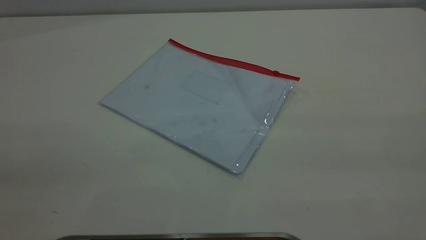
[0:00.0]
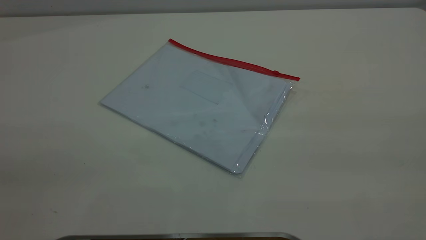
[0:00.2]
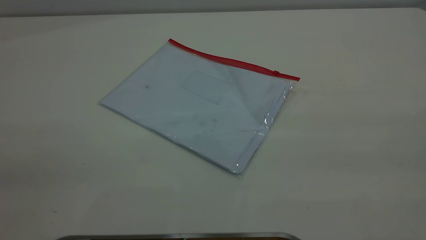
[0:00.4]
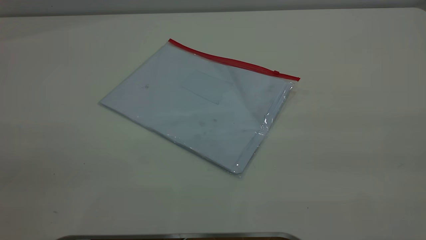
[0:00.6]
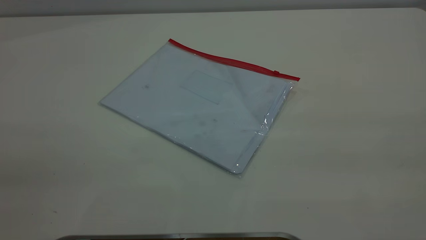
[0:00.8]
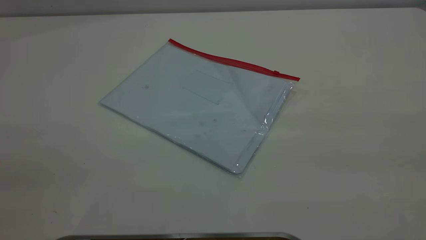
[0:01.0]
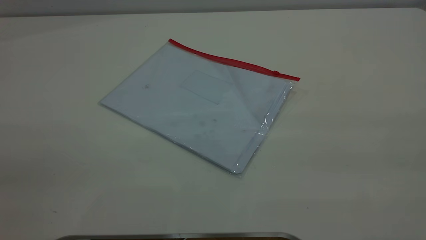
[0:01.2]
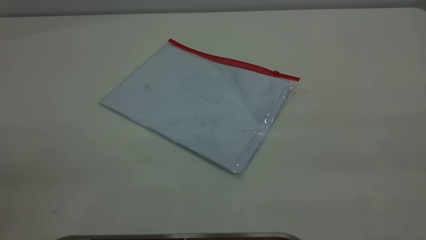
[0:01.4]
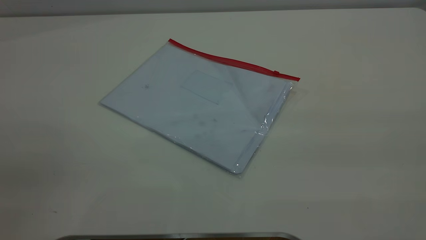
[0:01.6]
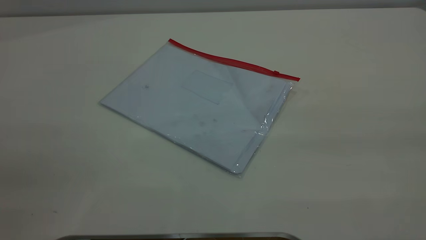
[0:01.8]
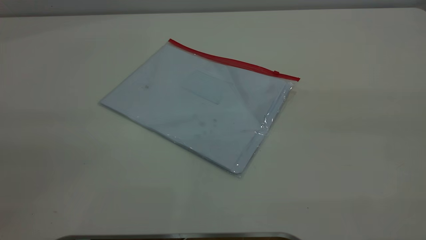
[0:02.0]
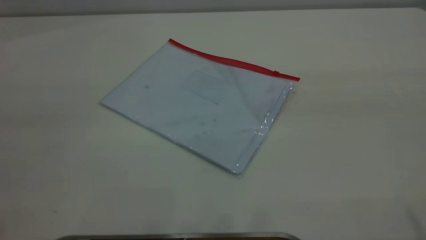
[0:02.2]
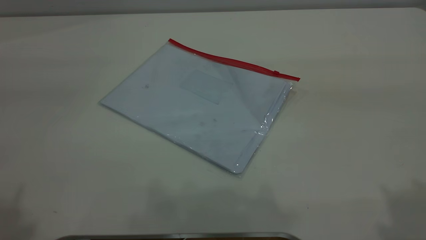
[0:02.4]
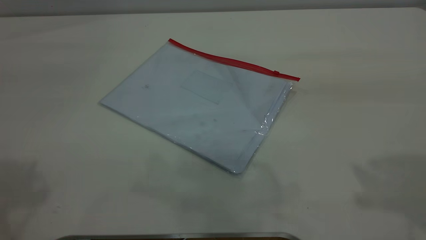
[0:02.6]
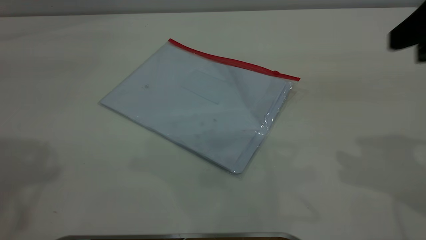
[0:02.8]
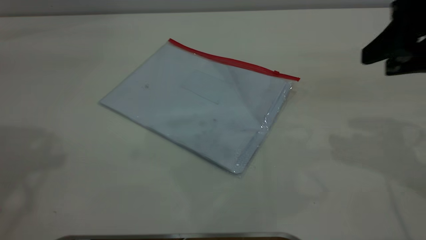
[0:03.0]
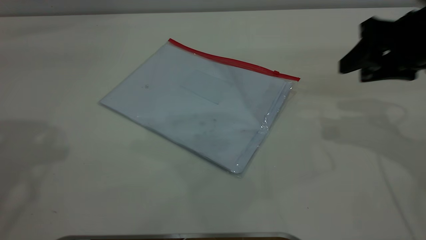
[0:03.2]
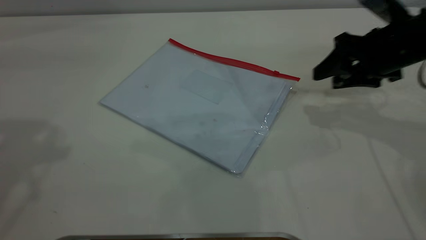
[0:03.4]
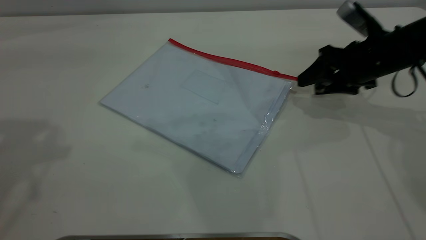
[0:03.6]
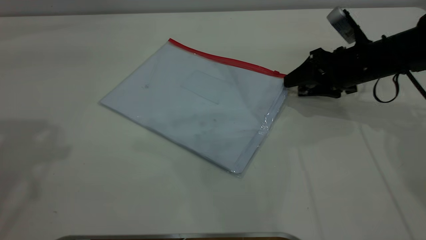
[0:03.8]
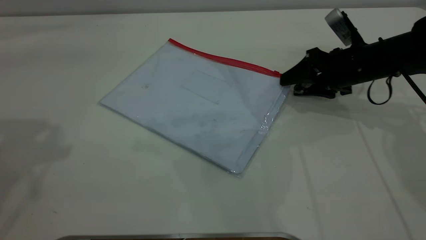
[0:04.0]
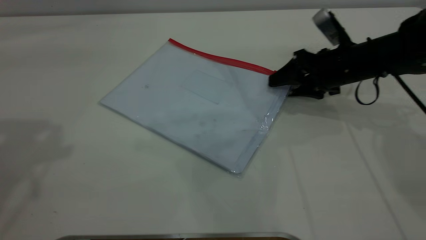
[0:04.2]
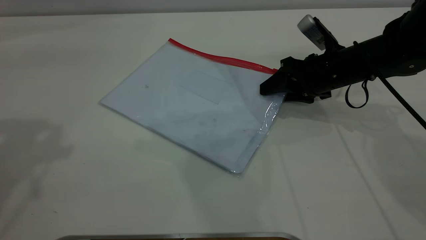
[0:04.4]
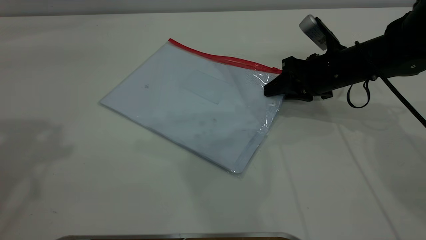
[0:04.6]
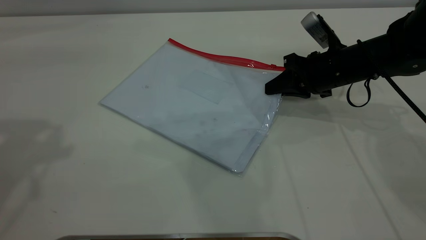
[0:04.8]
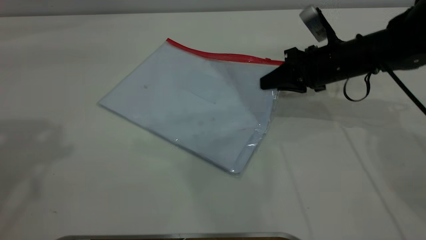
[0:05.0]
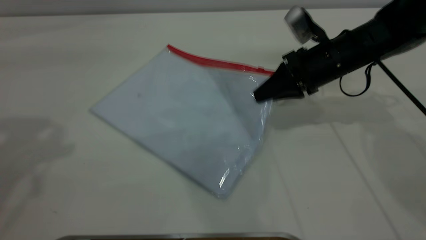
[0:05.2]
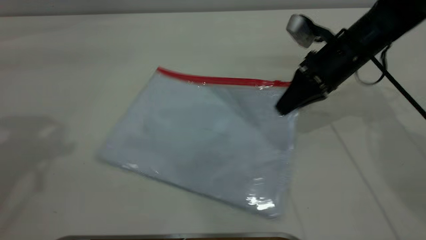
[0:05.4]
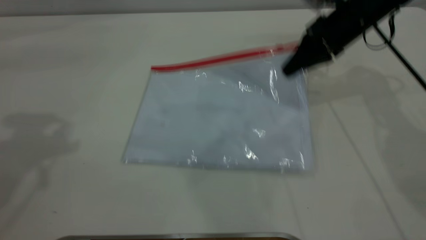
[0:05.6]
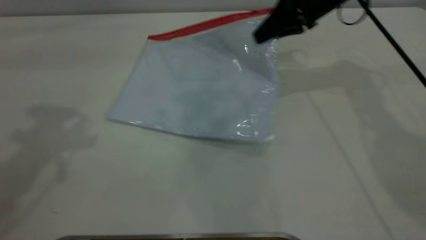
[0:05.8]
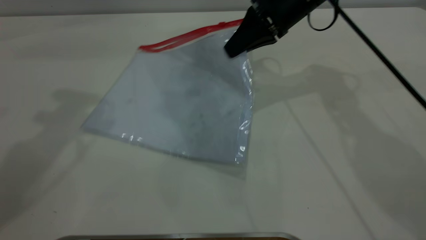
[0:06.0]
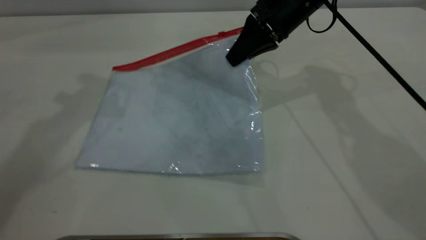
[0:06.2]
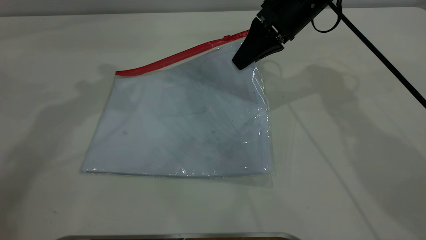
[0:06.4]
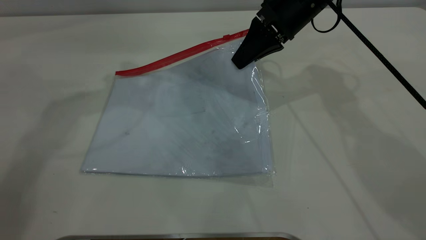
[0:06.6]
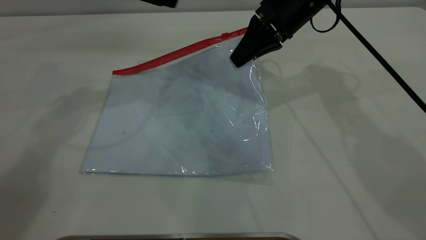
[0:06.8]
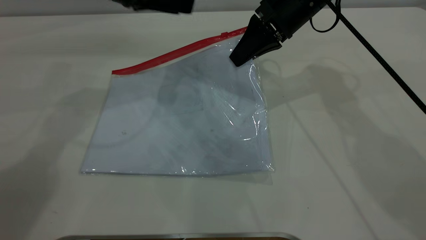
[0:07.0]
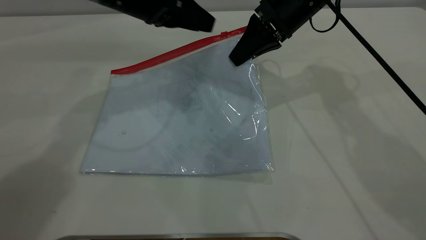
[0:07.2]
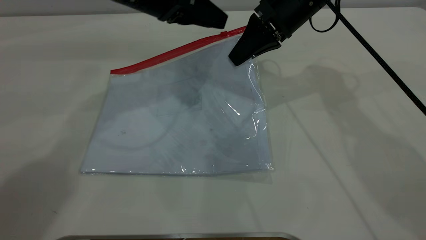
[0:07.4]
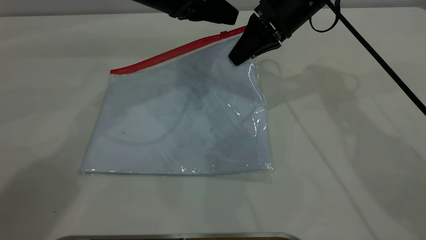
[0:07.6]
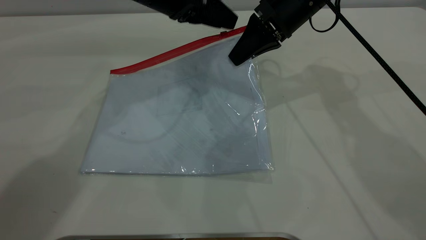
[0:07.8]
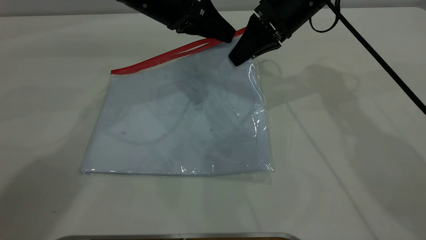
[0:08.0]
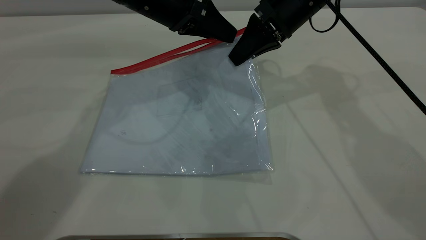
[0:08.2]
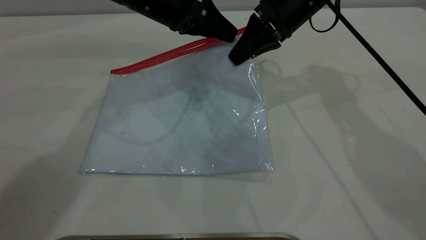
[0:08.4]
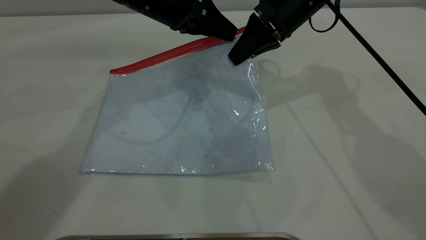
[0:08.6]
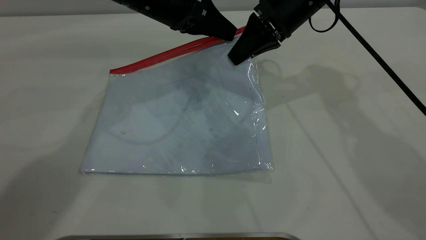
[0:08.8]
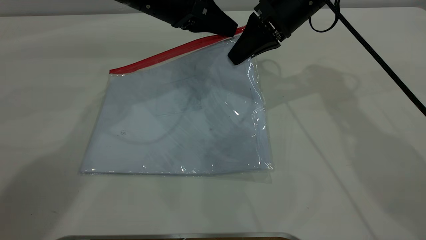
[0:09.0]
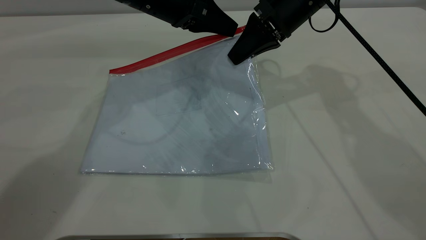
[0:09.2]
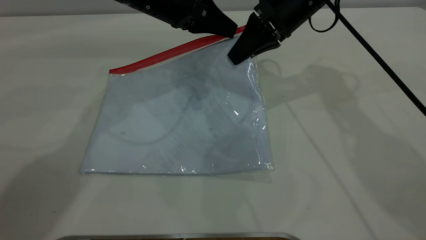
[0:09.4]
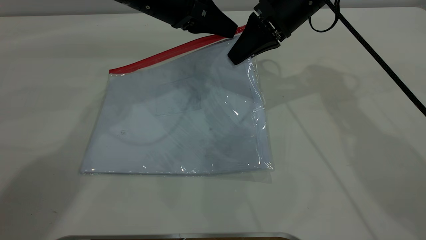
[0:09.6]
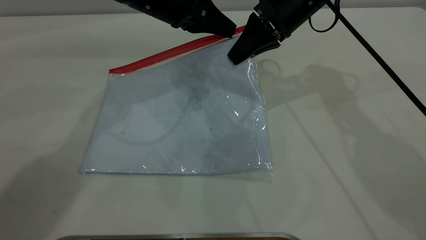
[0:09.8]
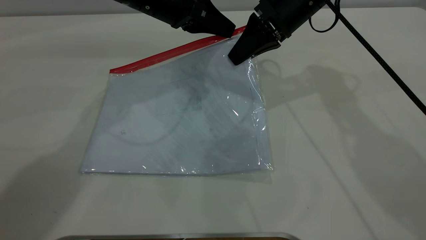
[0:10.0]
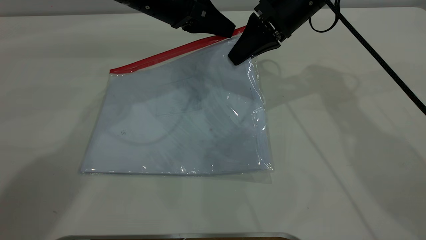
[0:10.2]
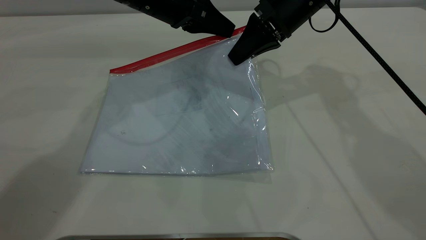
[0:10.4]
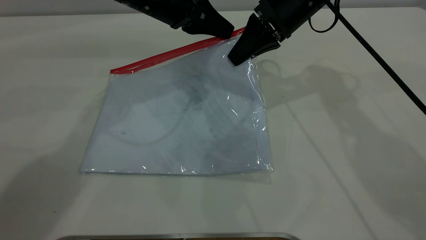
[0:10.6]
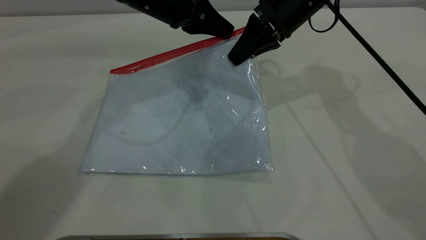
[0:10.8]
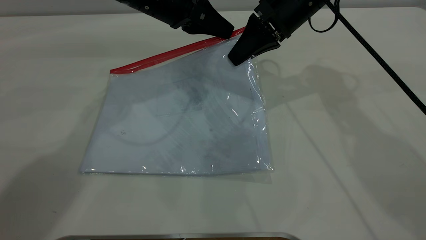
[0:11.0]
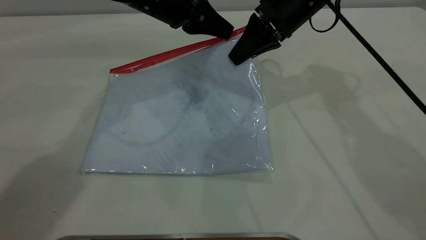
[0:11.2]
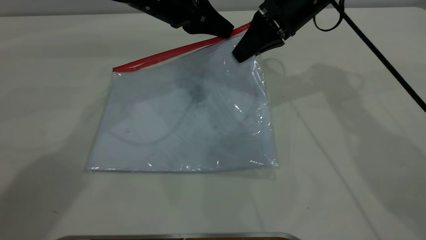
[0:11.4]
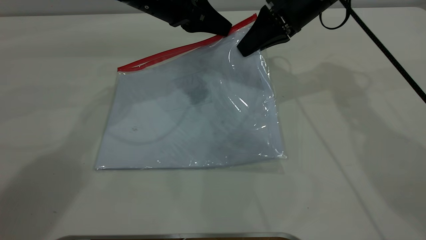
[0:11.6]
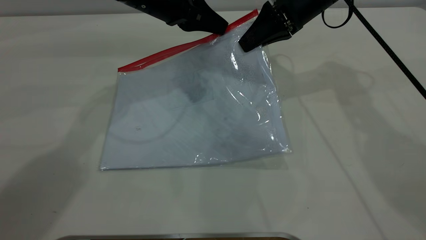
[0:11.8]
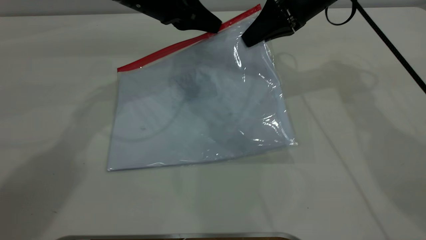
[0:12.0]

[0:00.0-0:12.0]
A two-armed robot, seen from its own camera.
Step, 0:00.0 to 0:06.6: Pick up the transparent plastic bag with the right gripper.
0:01.6 to 0:03.0: The right gripper shifts approximately 30 cm forward and downward.
0:03.0 to 0:04.4: The right gripper goes approximately 20 cm downward, forward and to the left.
0:04.4 to 0:06.0: The left gripper travels forward and to the right by roughly 10 cm. The right gripper goes about 15 cm upward and to the left, and closes up.
0:06.0 to 0:07.6: The left gripper heads downward, to the right and forward, covering approximately 20 cm.
0:07.6 to 0:09.0: The grippers stay close to where they were, moving slightly.
0:10.4 to 0:12.0: The grippers stay close to where they were, moving slightly.

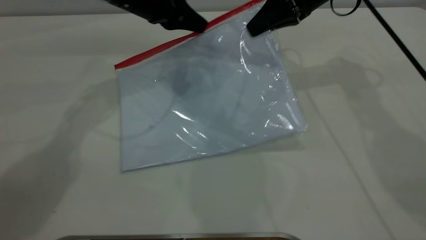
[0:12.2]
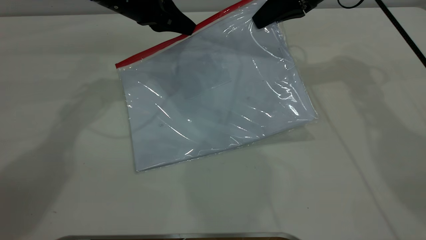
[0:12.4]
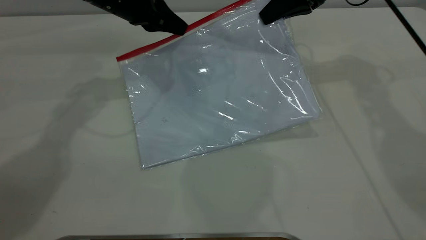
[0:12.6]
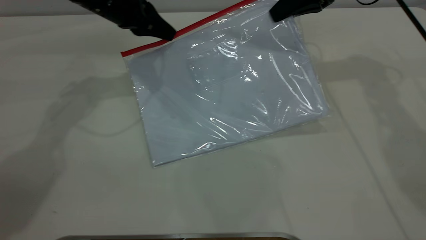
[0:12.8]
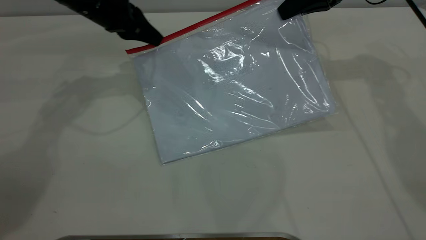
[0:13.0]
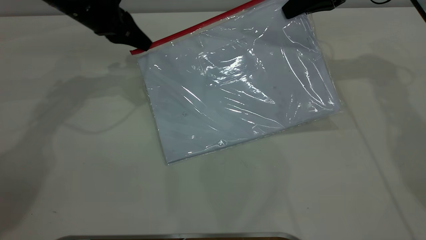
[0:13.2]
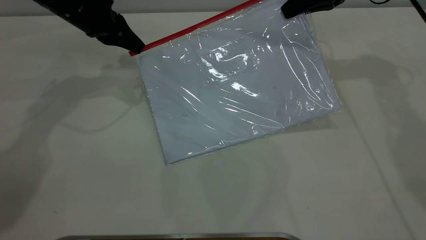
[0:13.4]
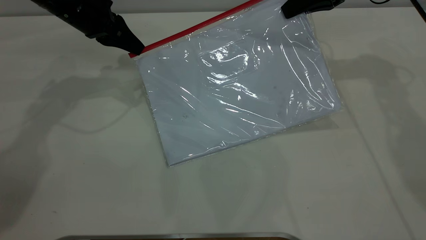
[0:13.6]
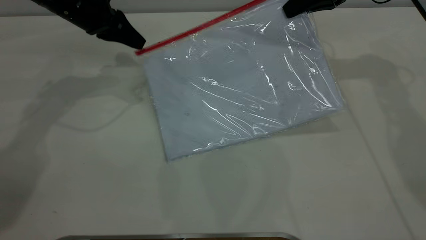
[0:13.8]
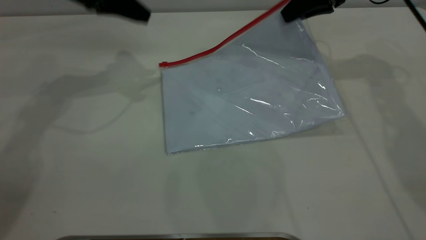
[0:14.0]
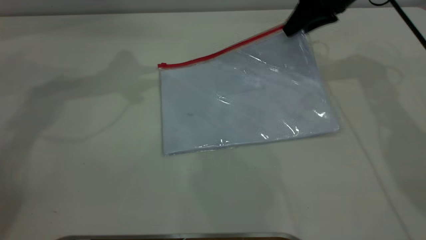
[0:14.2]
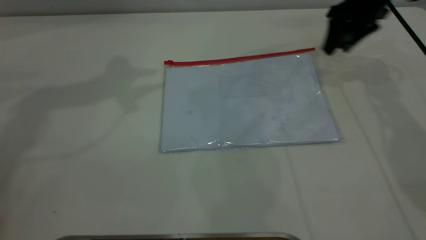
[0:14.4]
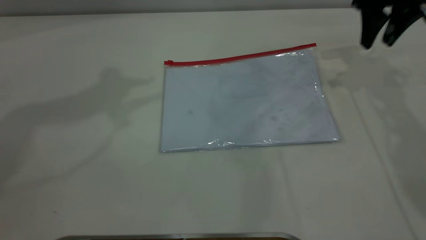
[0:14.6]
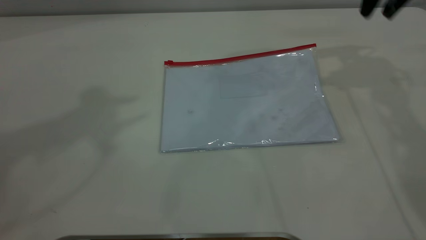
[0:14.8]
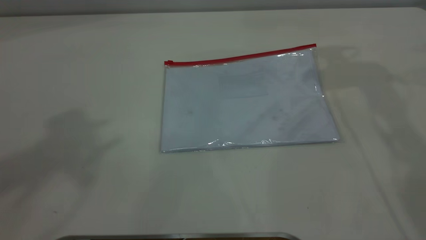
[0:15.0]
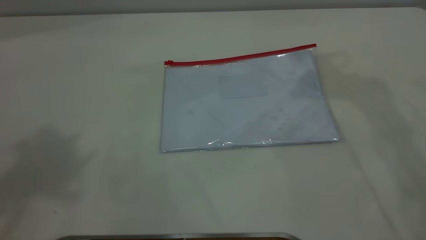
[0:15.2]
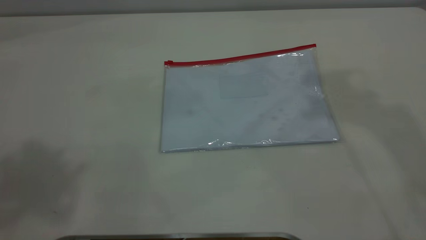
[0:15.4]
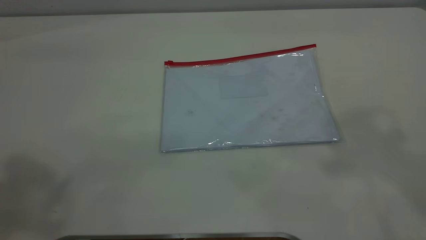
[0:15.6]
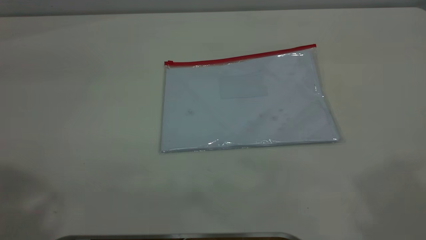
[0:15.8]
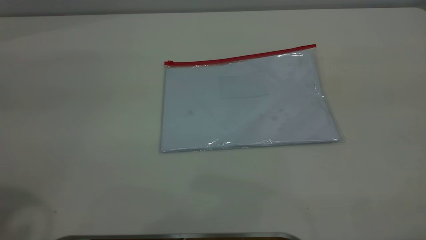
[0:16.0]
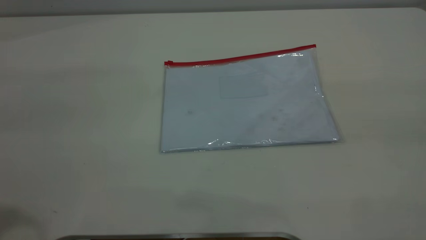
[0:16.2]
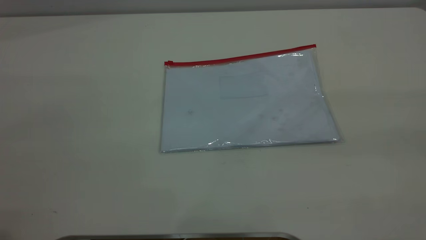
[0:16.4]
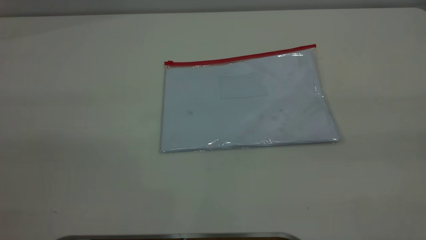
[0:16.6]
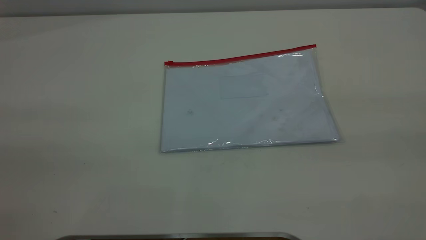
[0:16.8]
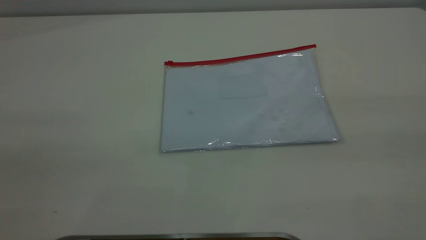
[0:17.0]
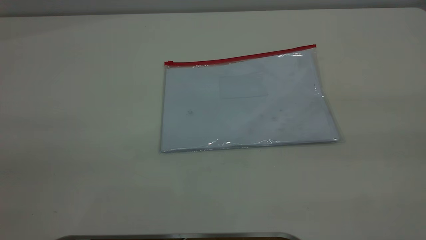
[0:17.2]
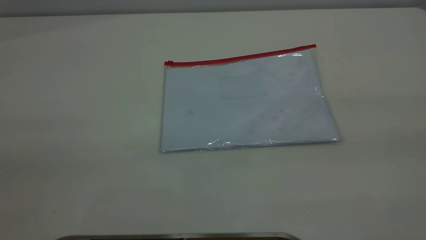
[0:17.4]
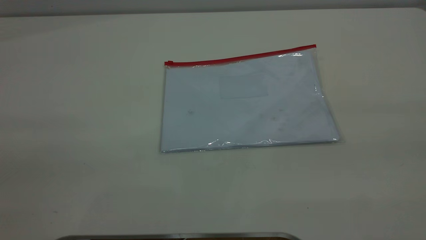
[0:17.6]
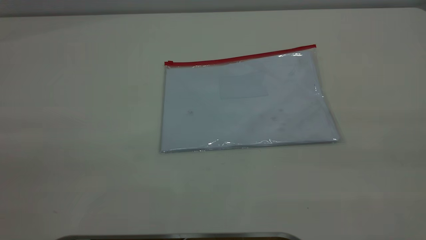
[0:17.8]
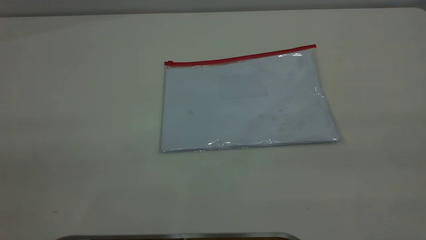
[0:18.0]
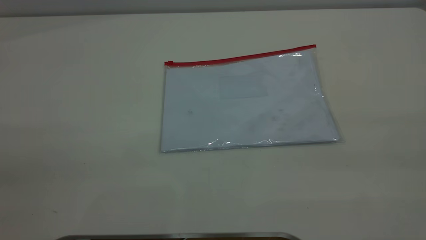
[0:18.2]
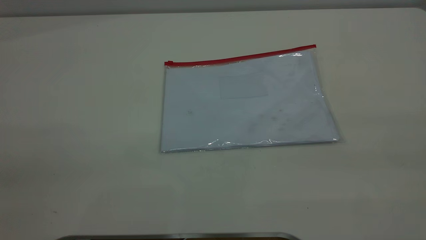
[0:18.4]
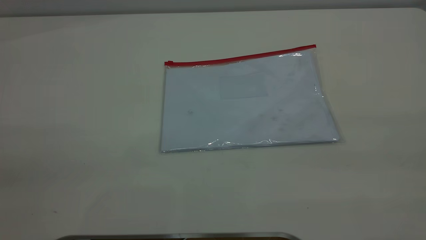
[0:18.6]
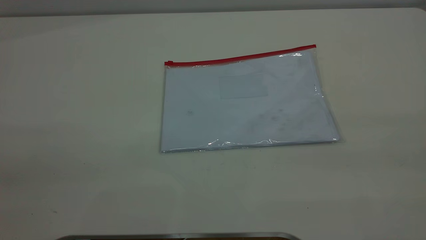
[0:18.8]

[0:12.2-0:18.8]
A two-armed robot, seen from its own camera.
Step, 0:14.2 to 0:14.8: Place the transparent plastic bag.
0:12.2 to 0:13.8: The left gripper shifts roughly 10 cm to the left. The right gripper is displaced to the right by approximately 5 cm.
0:13.8 to 0:15.4: Both grippers travel together upward and backward, about 40 cm. The left gripper opens its fingers. Meanwhile the right gripper opens its fingers.
